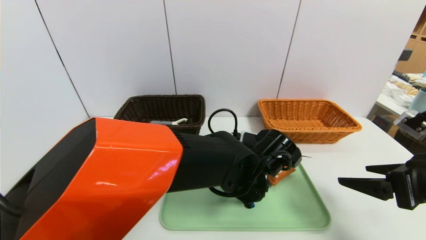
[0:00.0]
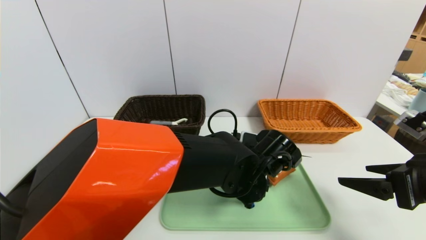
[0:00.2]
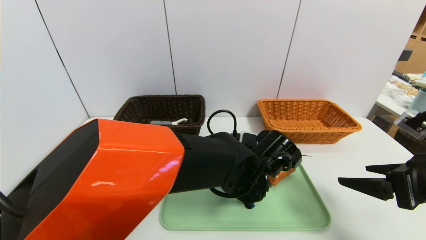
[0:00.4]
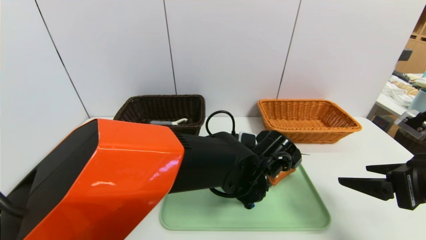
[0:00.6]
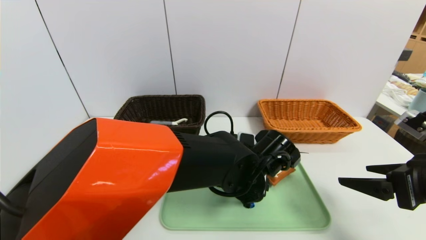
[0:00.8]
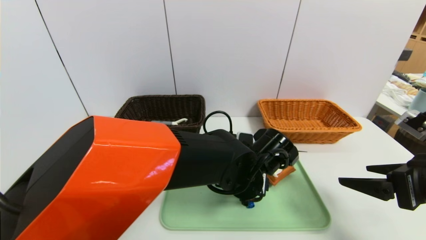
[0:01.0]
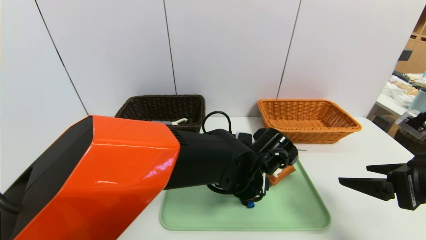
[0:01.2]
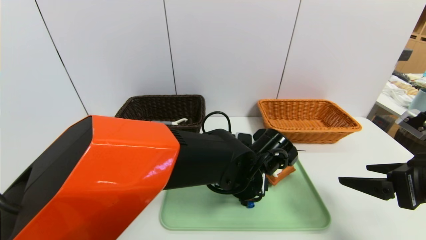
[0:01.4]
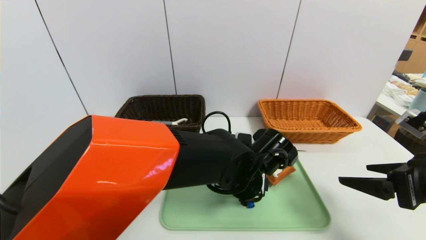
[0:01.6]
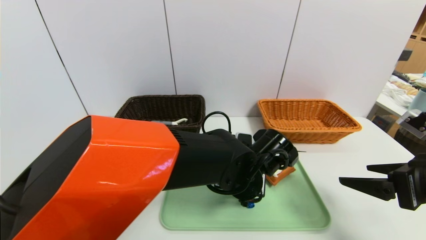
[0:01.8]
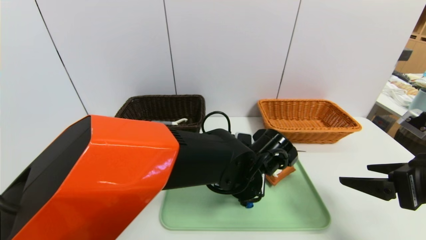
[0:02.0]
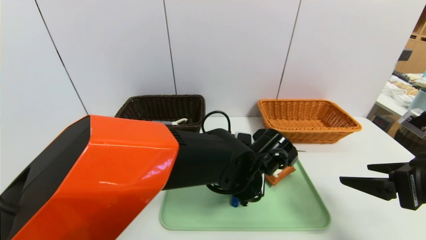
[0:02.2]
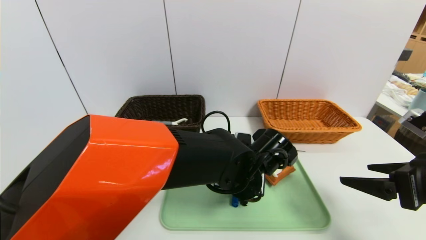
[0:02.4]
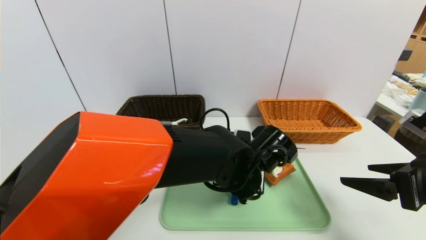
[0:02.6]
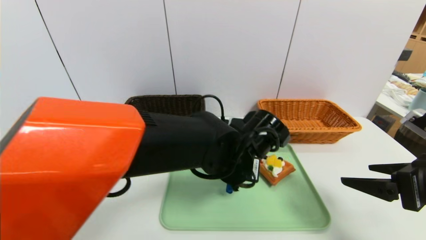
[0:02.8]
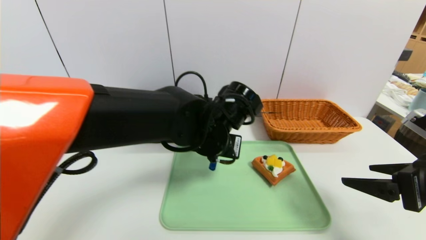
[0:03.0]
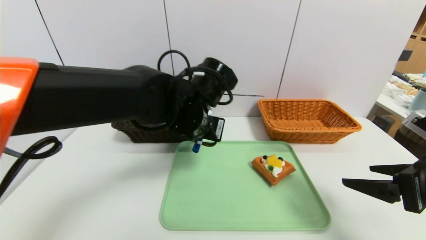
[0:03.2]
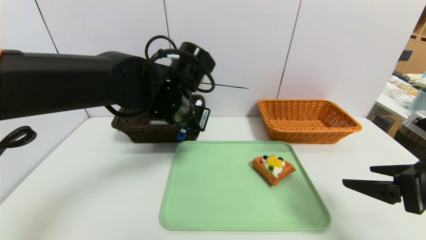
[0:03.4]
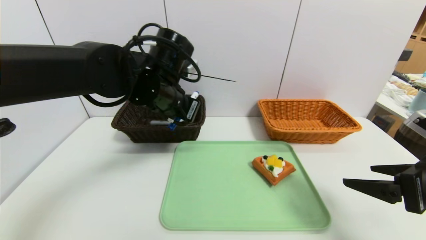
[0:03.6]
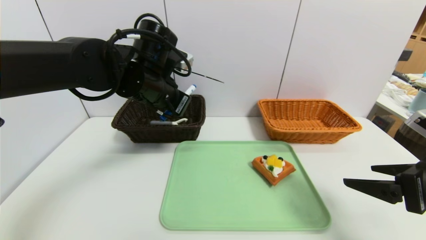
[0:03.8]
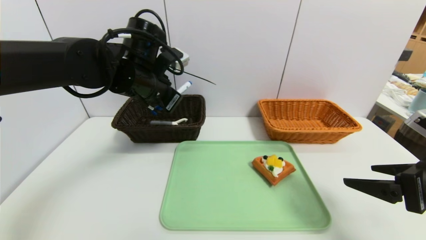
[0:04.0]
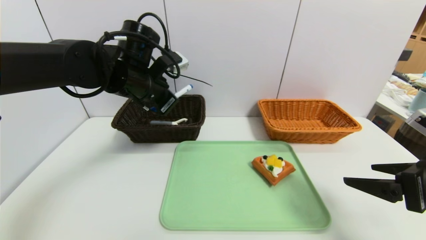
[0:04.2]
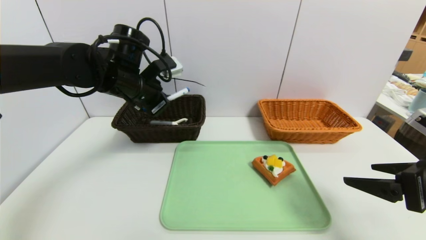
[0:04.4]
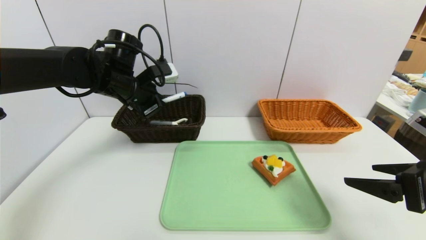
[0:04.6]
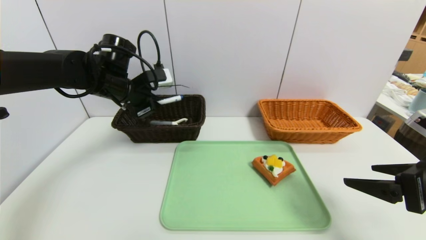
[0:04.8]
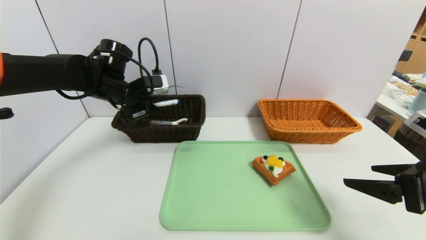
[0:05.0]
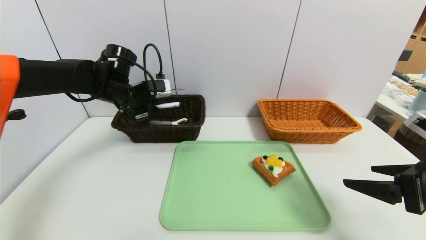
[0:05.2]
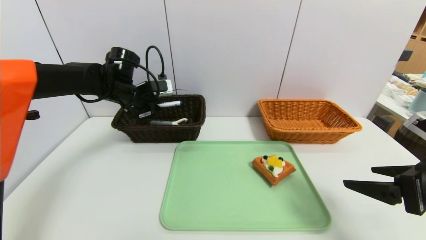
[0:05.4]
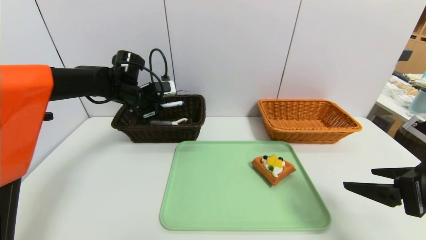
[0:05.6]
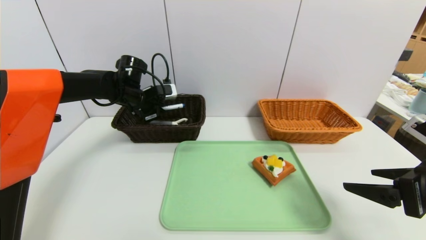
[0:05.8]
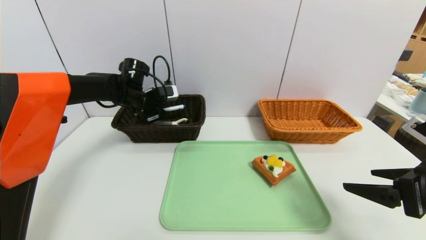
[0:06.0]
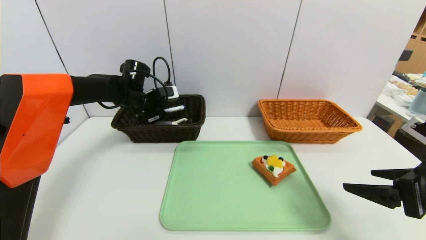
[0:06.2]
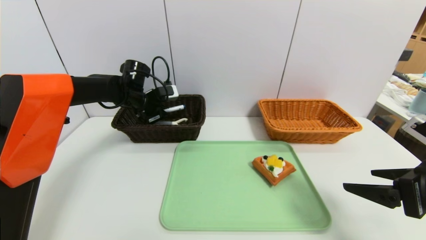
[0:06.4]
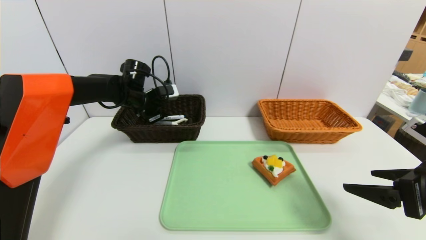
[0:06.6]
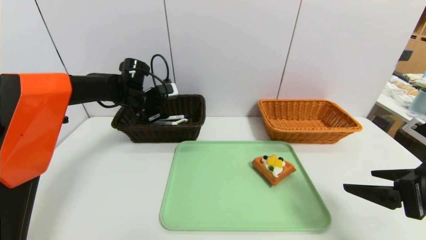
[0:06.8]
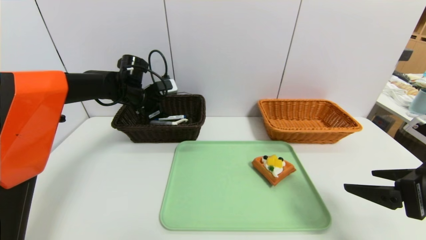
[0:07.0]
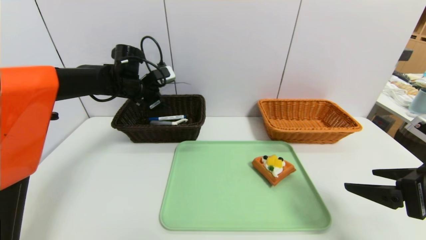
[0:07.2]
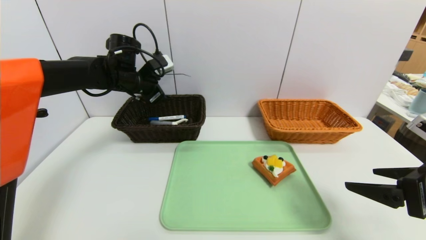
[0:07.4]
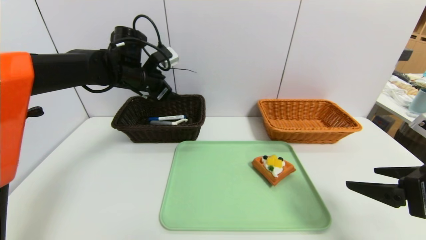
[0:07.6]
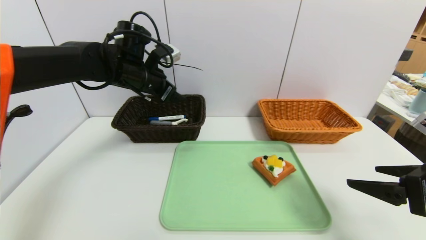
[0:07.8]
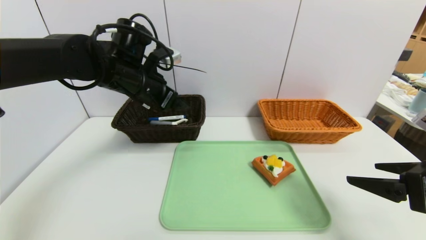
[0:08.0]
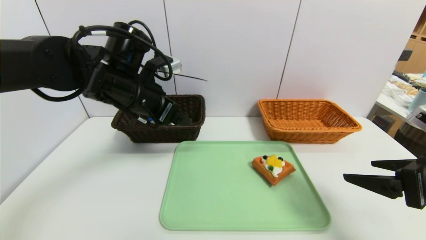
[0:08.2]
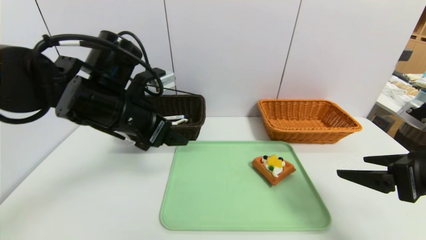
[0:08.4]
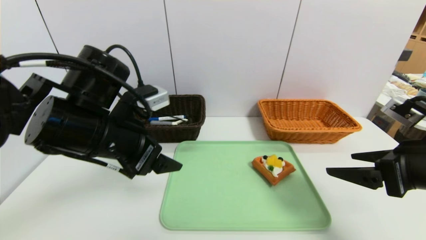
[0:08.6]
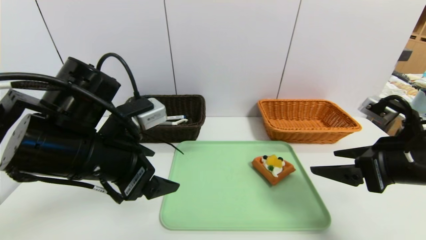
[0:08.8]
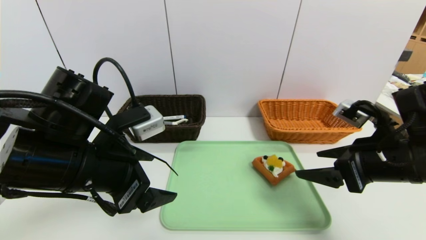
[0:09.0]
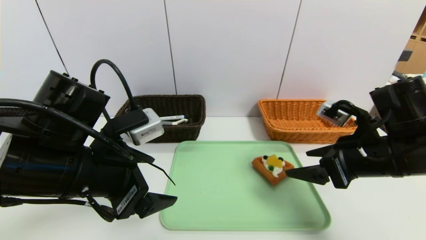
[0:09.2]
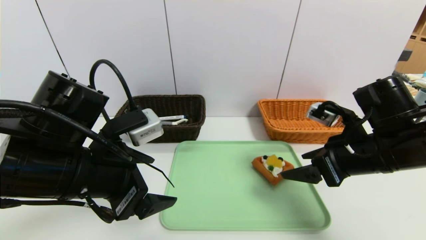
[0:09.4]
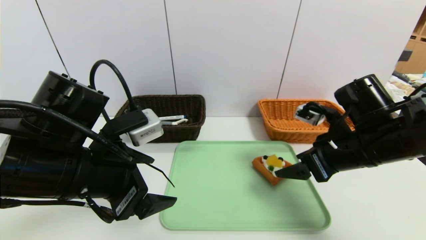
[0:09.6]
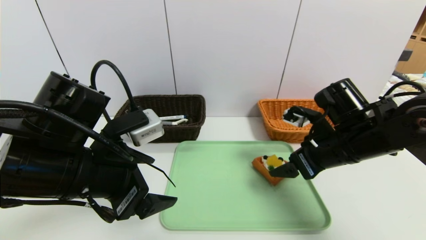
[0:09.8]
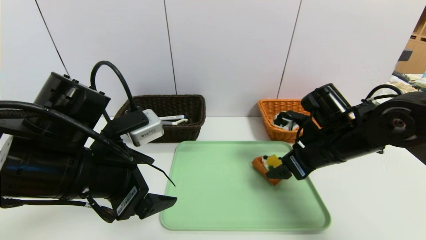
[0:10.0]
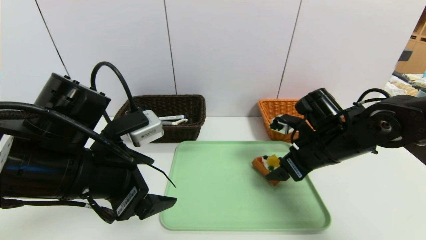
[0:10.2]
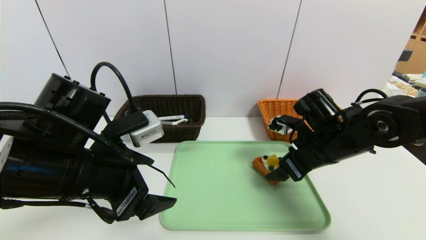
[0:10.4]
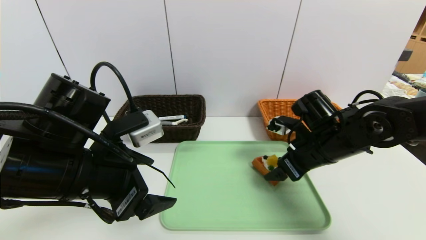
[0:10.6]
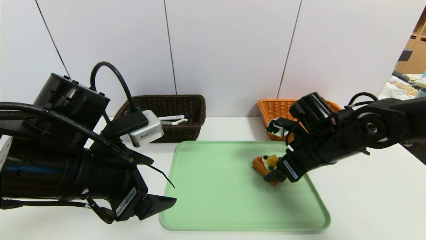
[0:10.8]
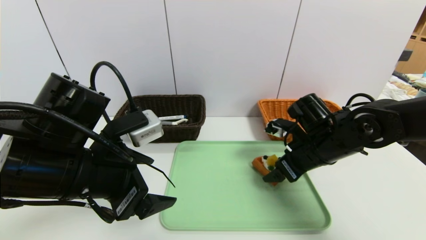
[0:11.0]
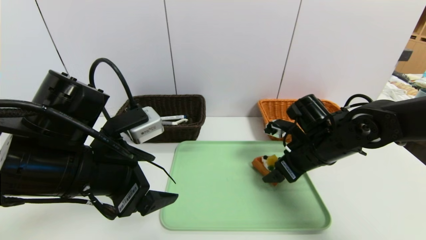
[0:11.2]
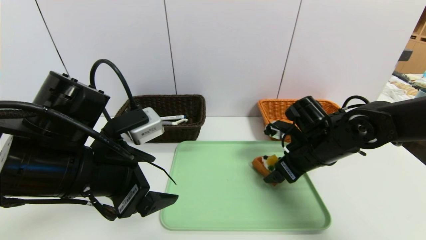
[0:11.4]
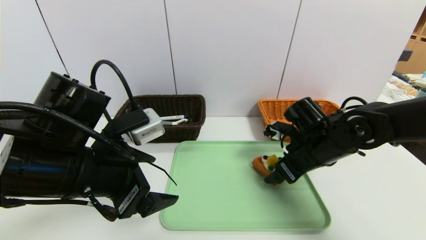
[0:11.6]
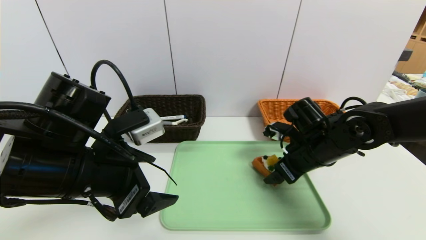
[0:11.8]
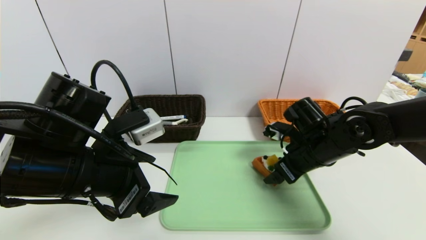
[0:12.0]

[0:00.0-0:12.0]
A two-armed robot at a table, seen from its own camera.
Task of the whole recording: place the food in the right basket with the right gripper, and place the non food items in the left basket with the left gripper.
Step, 0:00.0 to 0:07.2: Grasp the blue marker pen and put it in the left basket.
0:00.0 to 0:01.6: The grippers make only small movements.
0:01.6 to 0:03.0: The left gripper travels upward and to the left by about 10 cm, and closes its fingers.
0:03.0 to 0:04.4: The left gripper shifts about 20 cm to the left and forward.
0:04.4 to 0:06.0: The left gripper is displaced forward and downward by about 10 cm.
0:06.0 to 0:07.6: The left gripper heads upward, covering some 5 cm, and opens up.
0:07.6 to 0:09.0: The right gripper heads forward and to the left, covering roughly 10 cm; the left gripper heads backward, covering roughly 25 cm.
0:09.0 to 0:10.4: The right gripper travels forward and to the left by roughly 10 cm.
0:10.4 to 0:12.0: The grippers make only small movements.

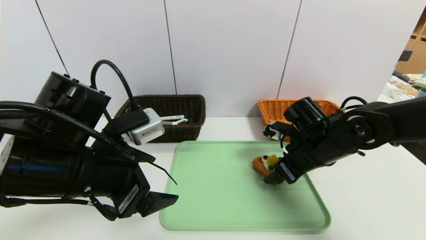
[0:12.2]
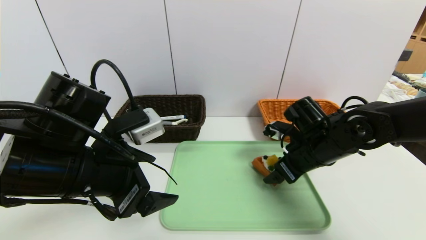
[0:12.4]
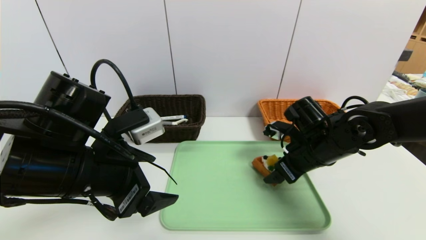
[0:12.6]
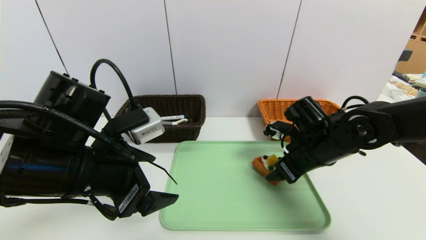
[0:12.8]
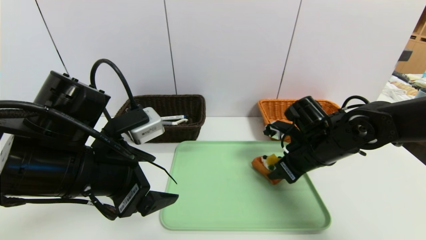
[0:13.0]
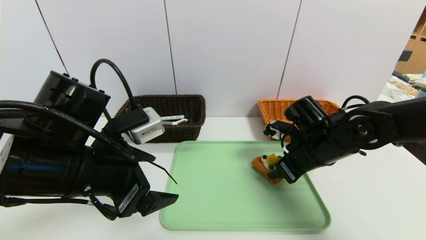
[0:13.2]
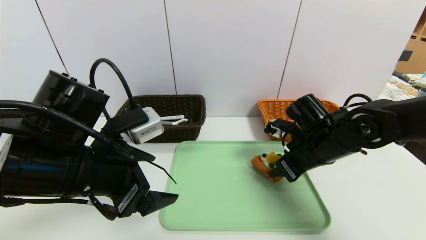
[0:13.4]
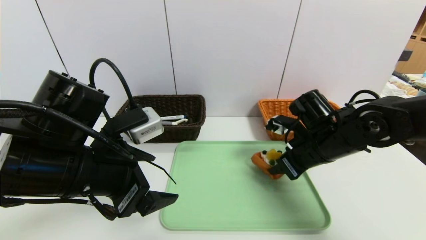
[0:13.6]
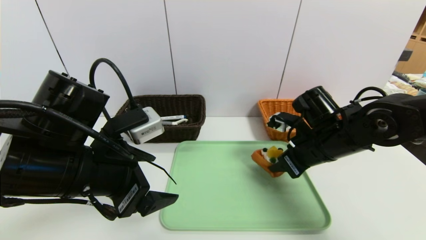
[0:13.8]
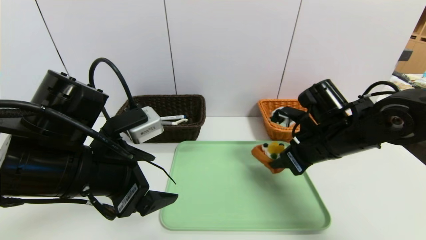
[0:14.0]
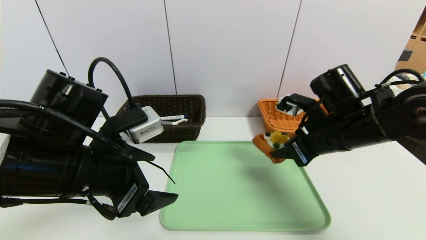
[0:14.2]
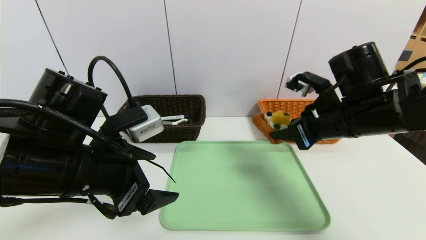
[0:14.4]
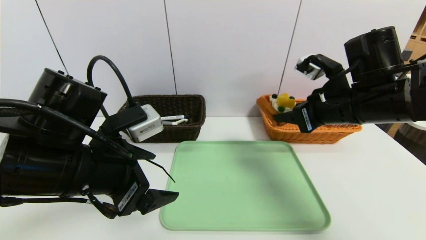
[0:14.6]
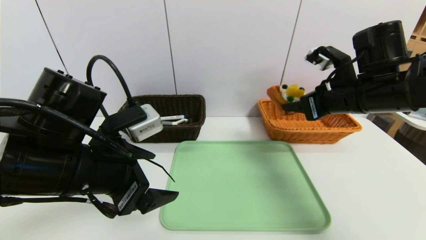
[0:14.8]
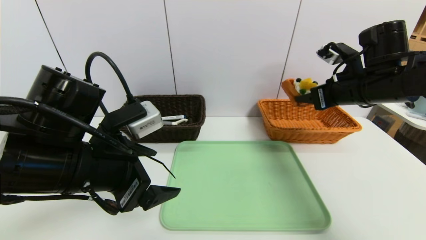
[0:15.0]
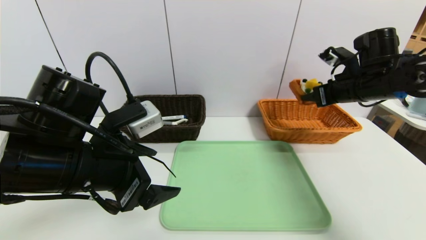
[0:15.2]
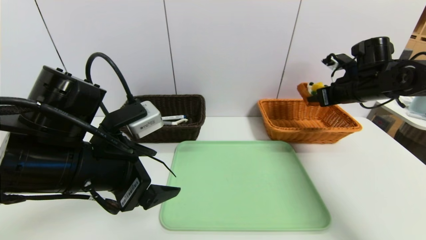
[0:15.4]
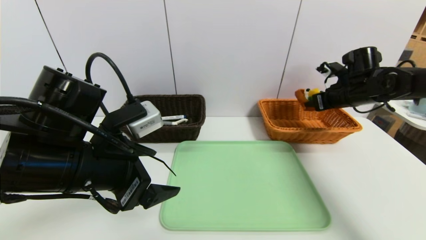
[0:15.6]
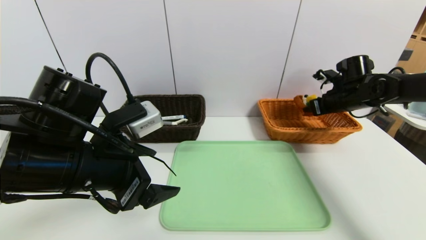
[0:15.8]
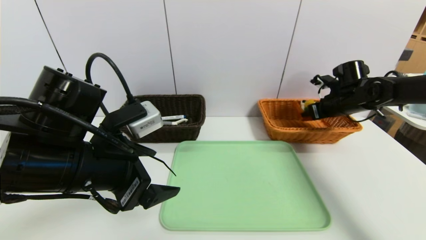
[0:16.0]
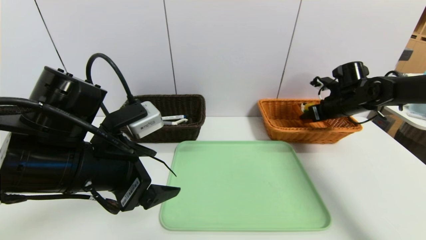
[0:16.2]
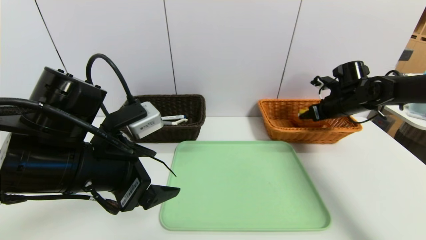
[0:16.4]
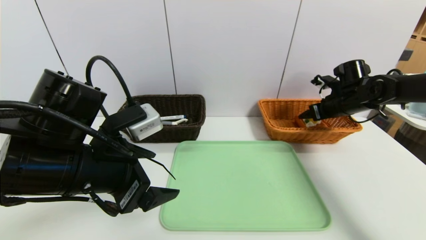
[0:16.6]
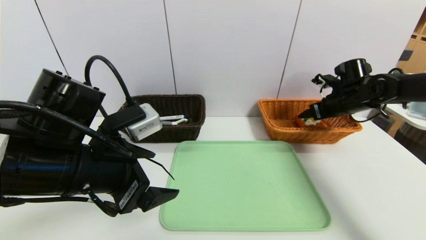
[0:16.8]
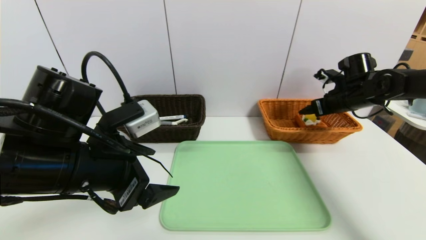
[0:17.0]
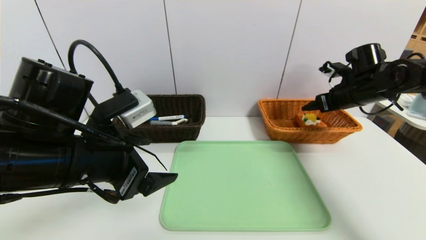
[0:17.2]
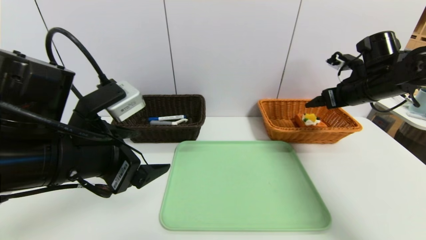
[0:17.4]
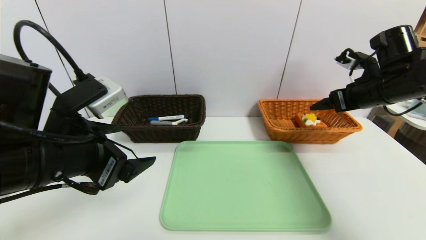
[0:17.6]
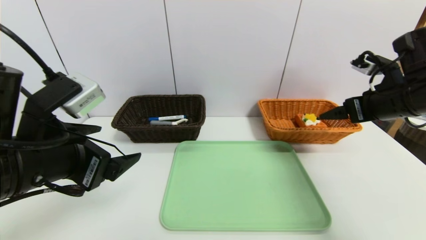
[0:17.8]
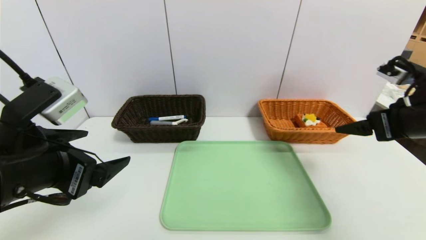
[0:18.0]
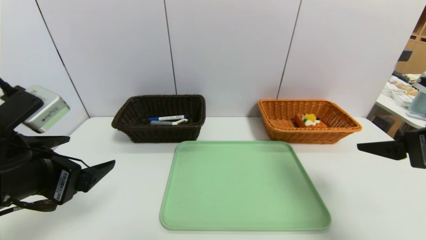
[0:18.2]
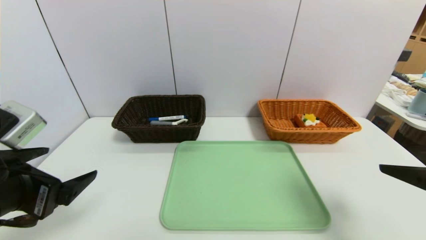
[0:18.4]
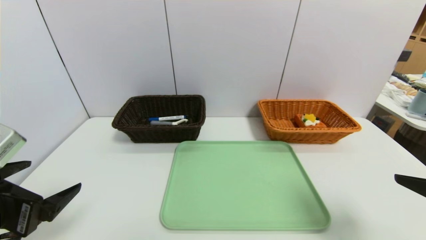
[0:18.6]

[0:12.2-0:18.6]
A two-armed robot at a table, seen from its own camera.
Task of the whole recording: place the food in the right basket with the right gripper, and place the non food items in the left basket with the left gripper.
Step, 0:12.2 to 0:16.8: Grasp the triangle cake and put it in the right basket.
0:12.2 to 0:13.8: The right gripper closes up.
0:13.8 to 0:15.4: The right gripper moves to the right, forward and upward, approximately 20 cm.
0:15.4 to 0:17.0: The right gripper opens.
0:17.0 to 0:18.6: The left gripper goes approximately 15 cm to the left and backward; the right gripper shifts about 35 cm backward.
